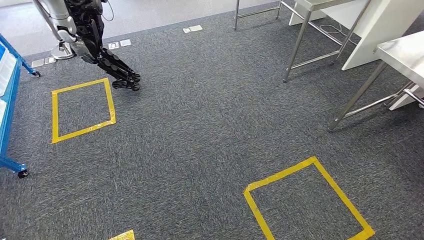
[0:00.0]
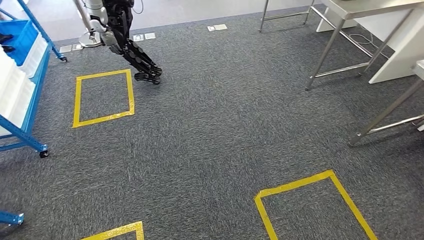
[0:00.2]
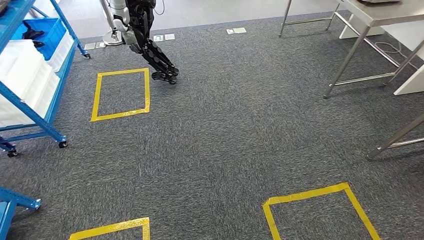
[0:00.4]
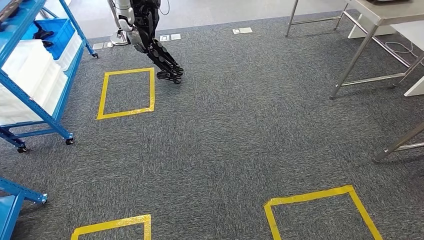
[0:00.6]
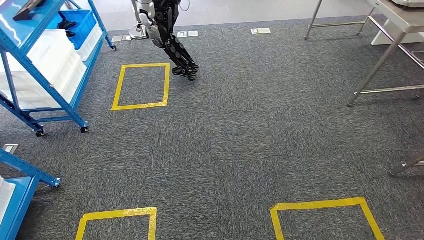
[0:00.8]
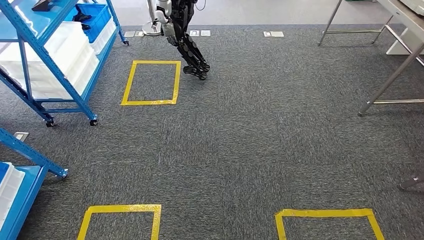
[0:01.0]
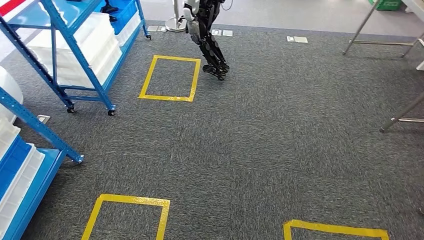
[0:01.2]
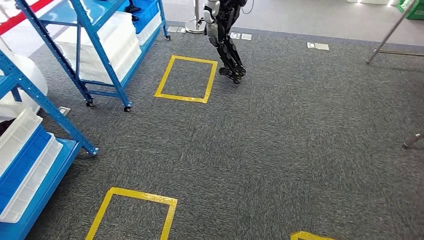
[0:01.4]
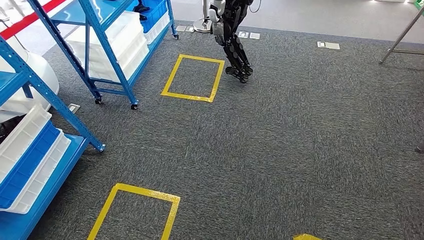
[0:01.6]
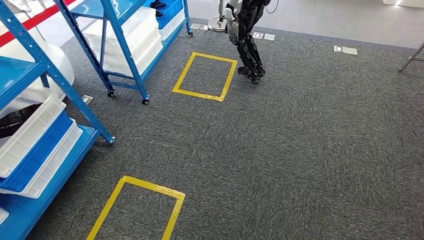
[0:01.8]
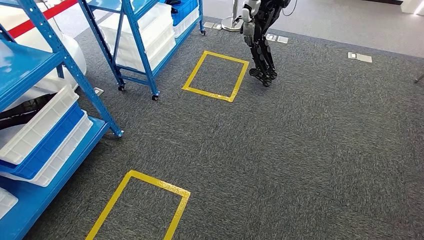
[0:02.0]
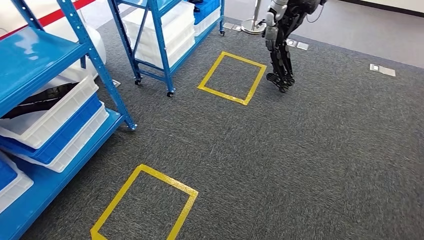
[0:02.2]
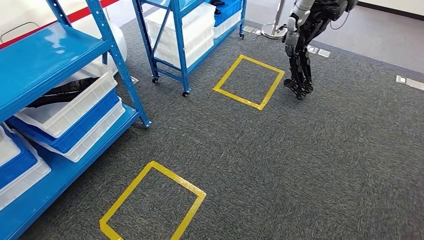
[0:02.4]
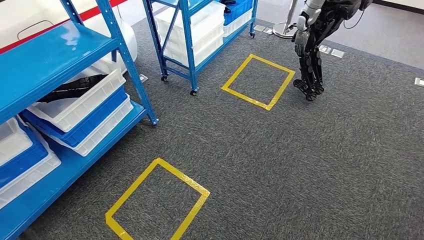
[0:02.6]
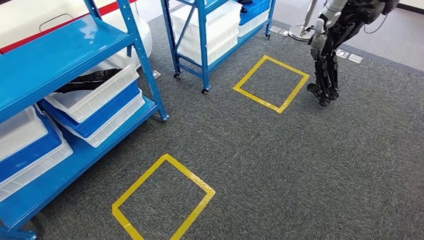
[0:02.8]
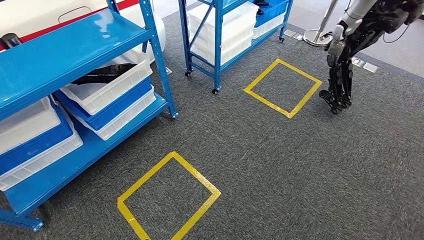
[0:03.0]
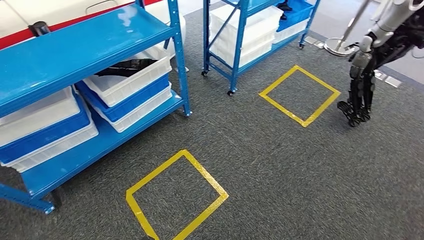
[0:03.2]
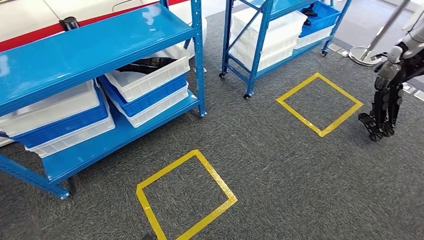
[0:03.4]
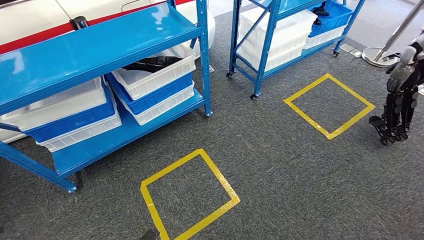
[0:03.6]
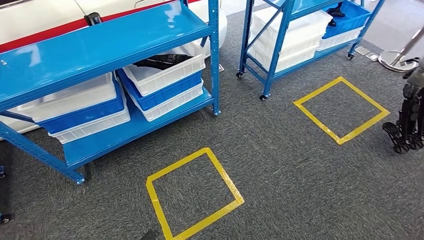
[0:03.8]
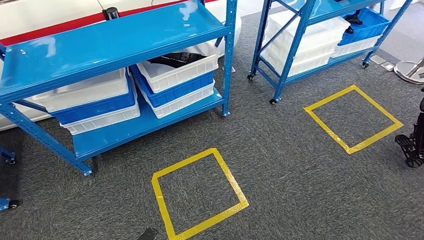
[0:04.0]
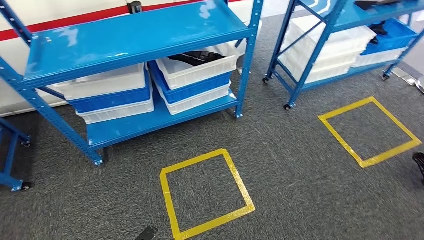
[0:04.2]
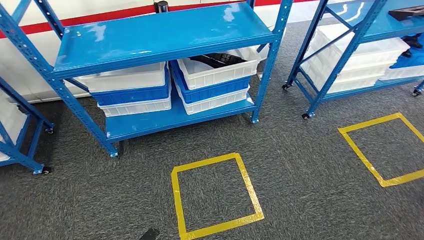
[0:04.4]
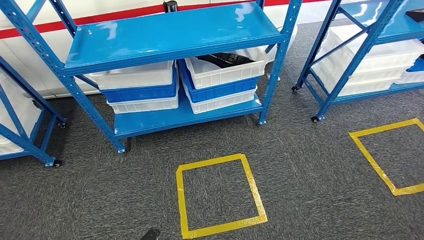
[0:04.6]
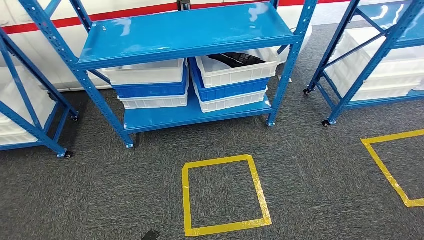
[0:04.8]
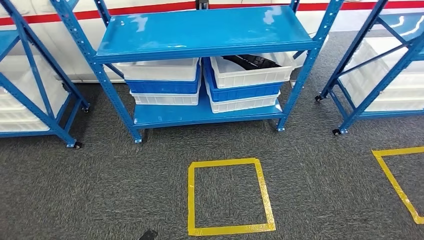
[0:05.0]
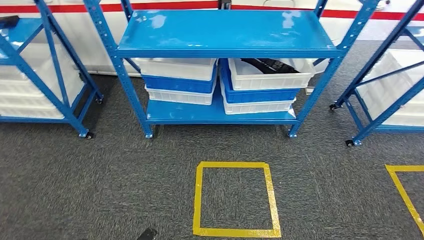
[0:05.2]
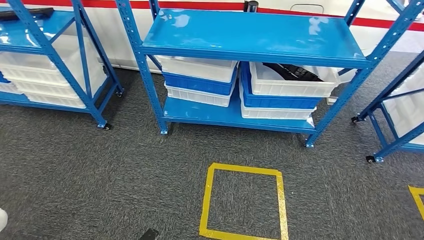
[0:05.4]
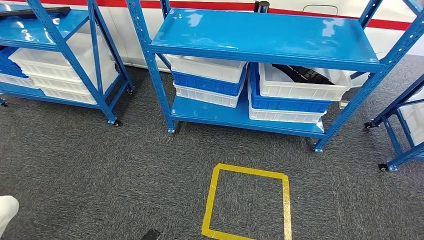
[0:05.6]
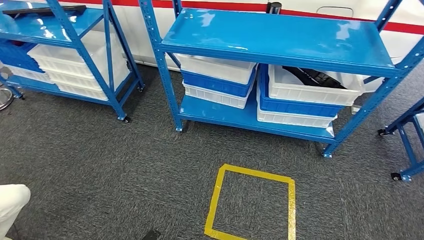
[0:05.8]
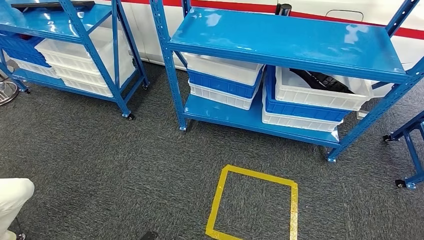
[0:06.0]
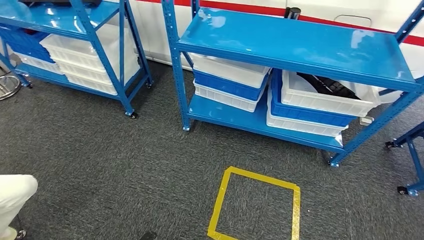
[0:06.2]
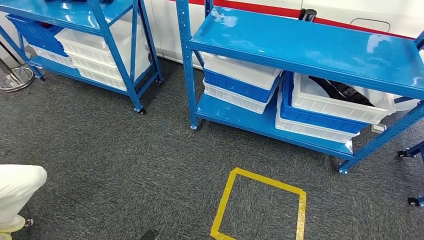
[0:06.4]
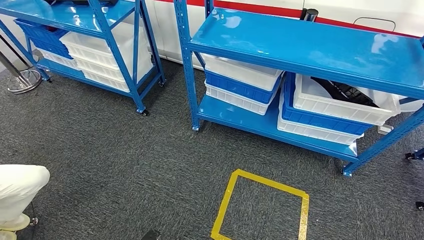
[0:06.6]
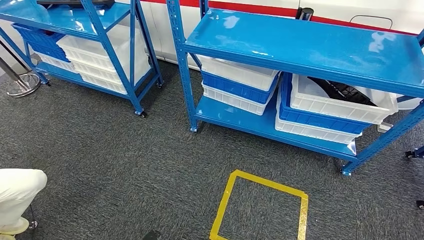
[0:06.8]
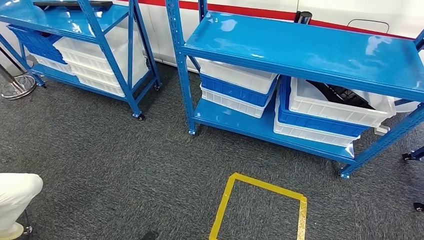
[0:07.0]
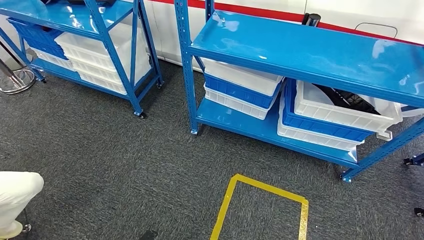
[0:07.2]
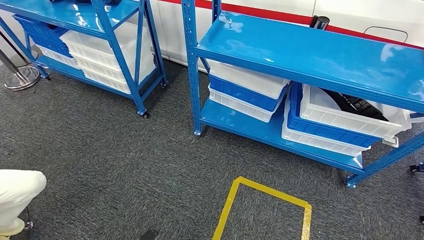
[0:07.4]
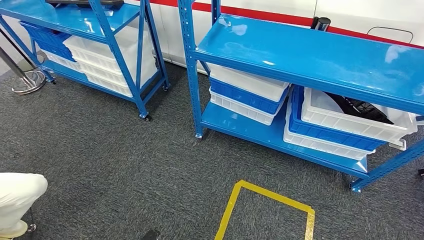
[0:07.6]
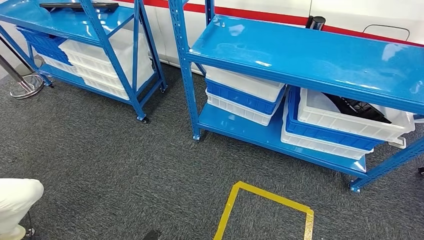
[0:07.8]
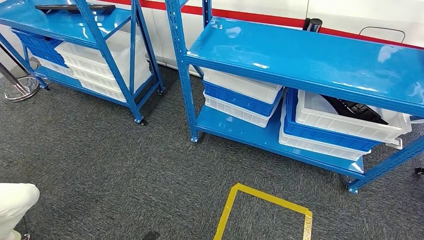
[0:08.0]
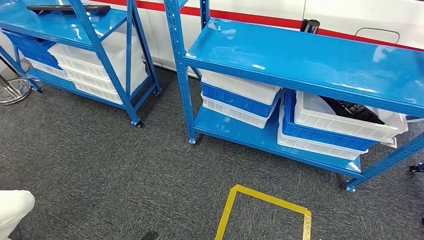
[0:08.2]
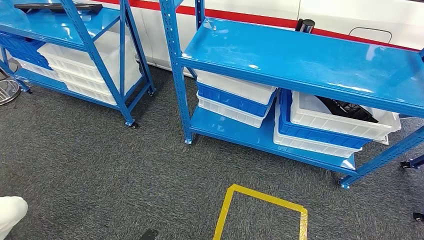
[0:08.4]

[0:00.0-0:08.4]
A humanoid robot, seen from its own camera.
Step, 0:00.0 to 0:08.4: Move to the initial position of the shelf.

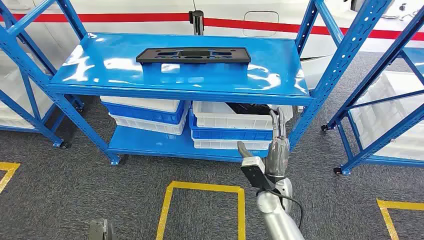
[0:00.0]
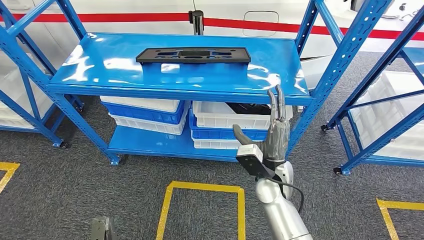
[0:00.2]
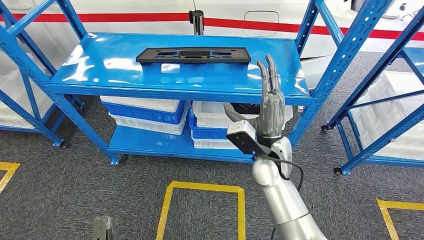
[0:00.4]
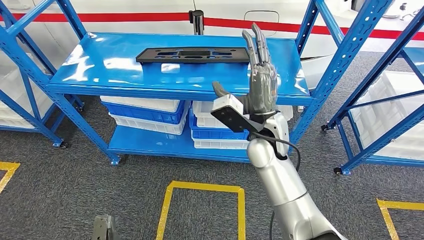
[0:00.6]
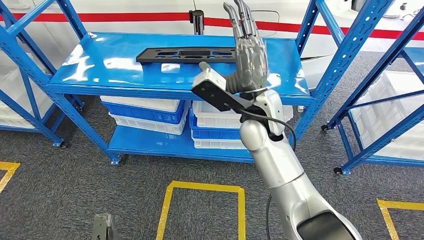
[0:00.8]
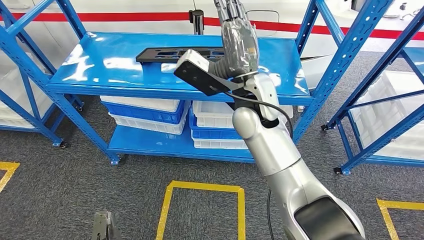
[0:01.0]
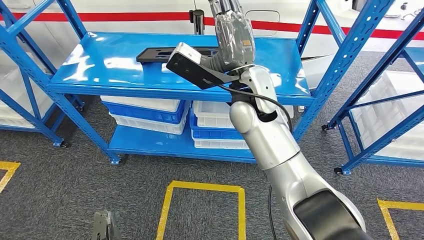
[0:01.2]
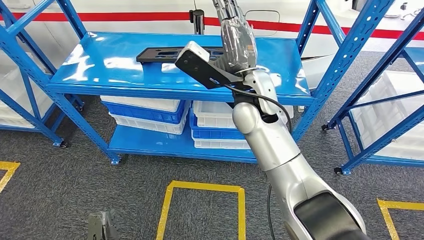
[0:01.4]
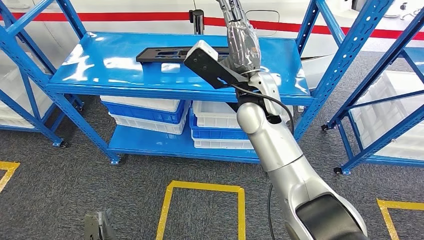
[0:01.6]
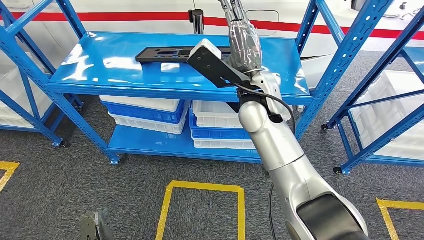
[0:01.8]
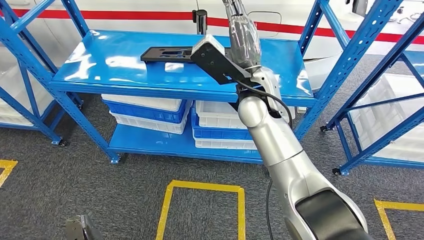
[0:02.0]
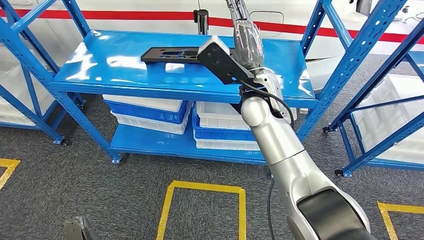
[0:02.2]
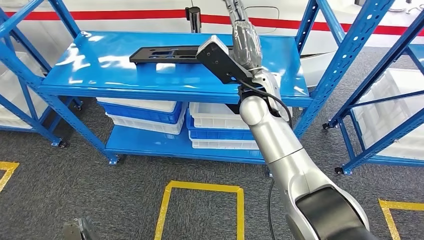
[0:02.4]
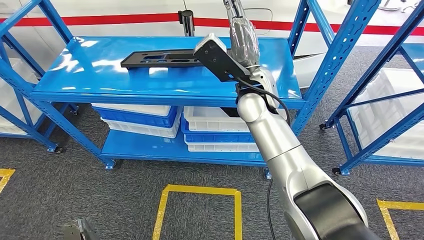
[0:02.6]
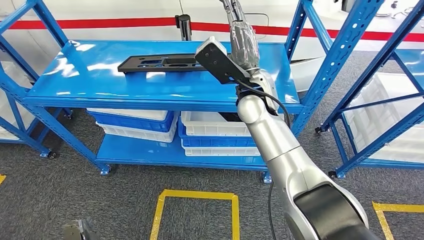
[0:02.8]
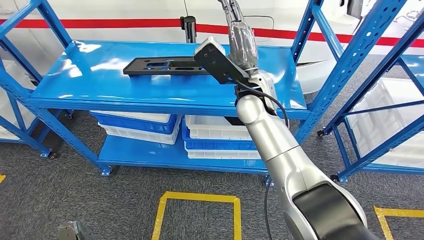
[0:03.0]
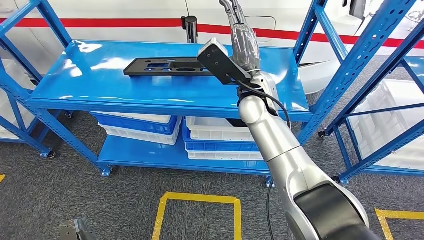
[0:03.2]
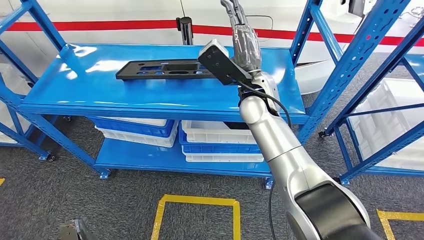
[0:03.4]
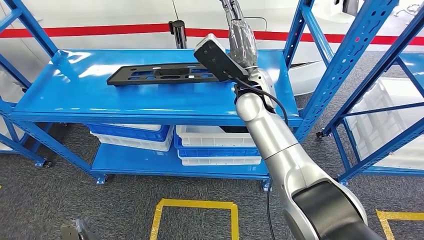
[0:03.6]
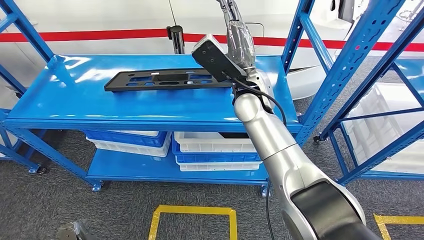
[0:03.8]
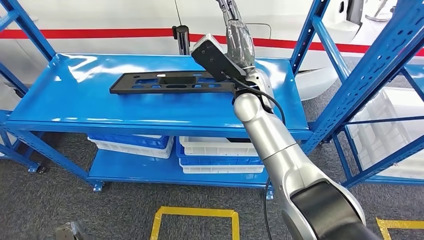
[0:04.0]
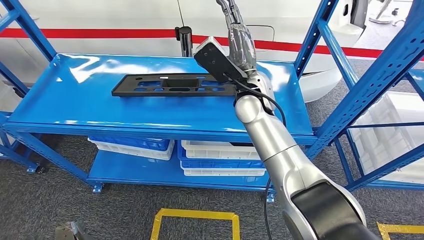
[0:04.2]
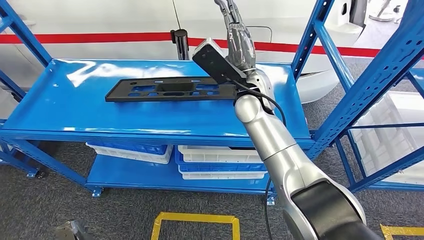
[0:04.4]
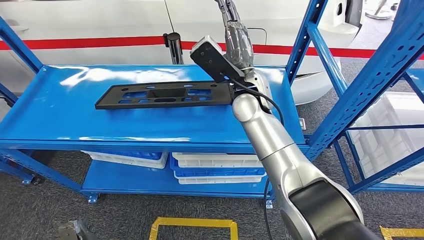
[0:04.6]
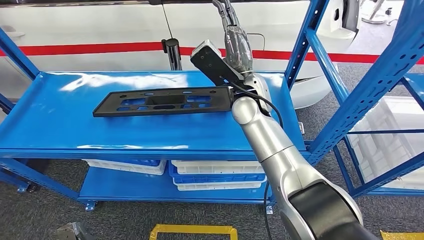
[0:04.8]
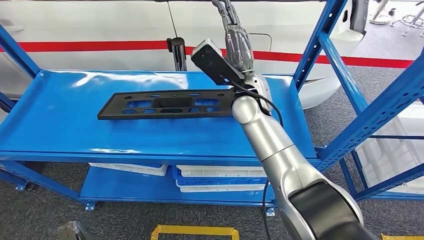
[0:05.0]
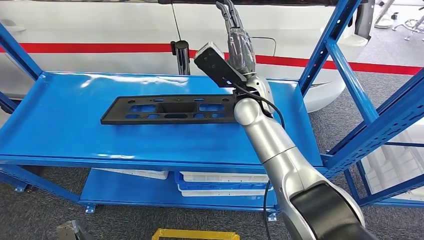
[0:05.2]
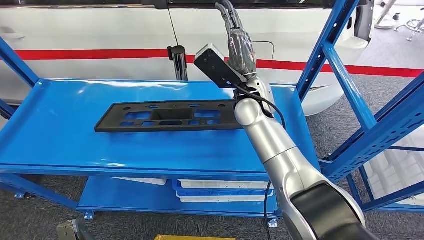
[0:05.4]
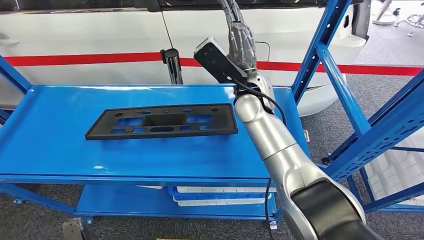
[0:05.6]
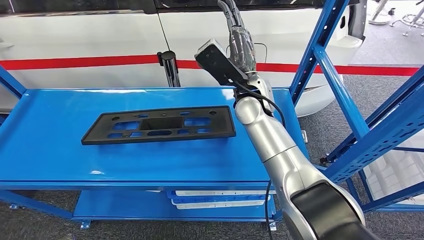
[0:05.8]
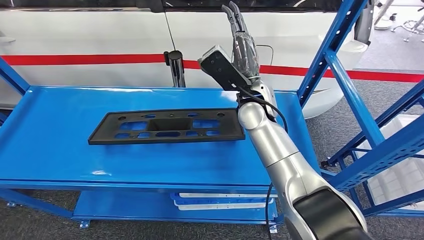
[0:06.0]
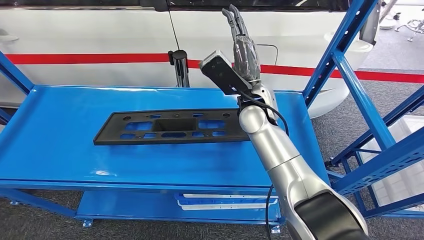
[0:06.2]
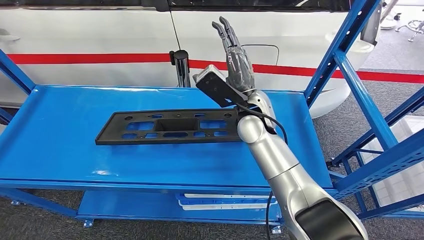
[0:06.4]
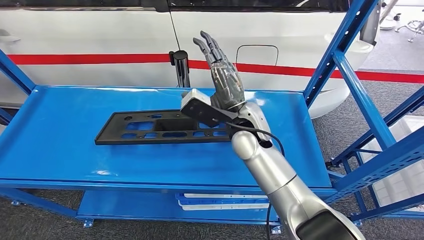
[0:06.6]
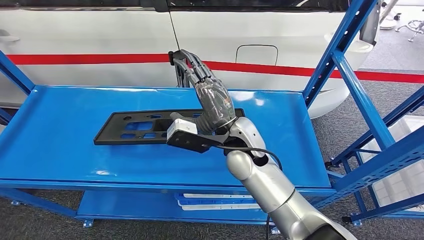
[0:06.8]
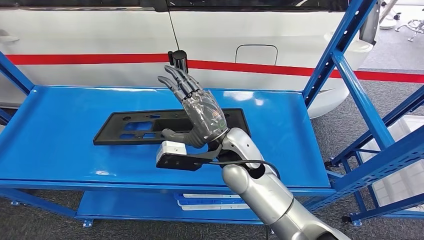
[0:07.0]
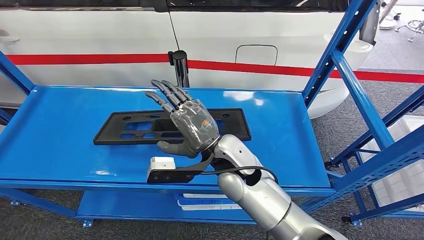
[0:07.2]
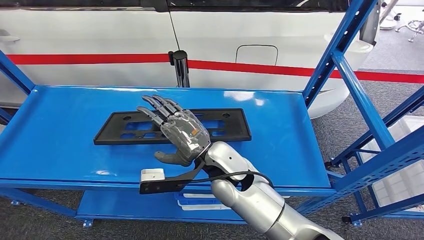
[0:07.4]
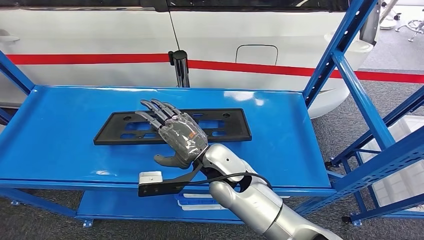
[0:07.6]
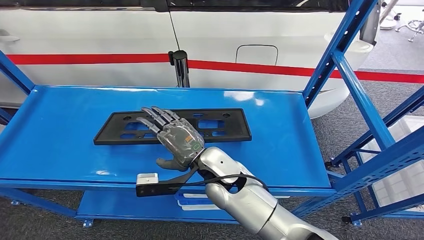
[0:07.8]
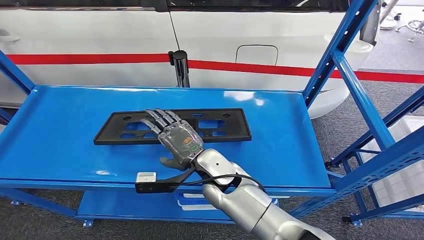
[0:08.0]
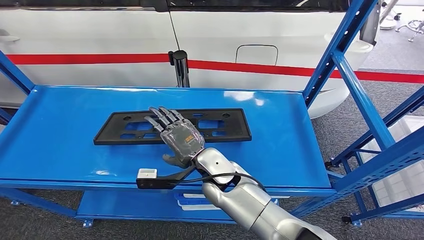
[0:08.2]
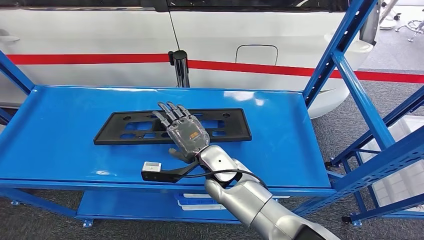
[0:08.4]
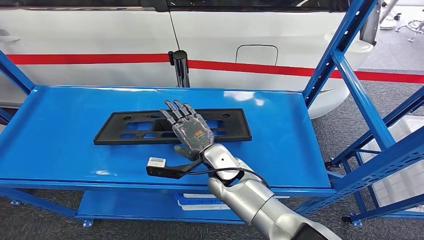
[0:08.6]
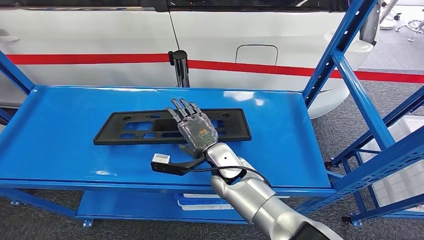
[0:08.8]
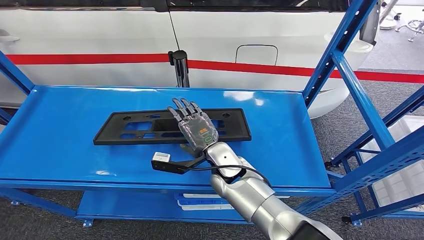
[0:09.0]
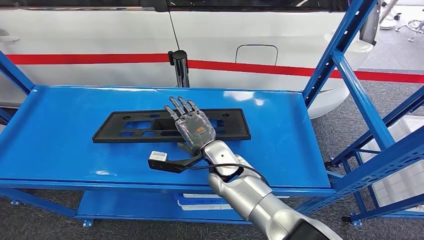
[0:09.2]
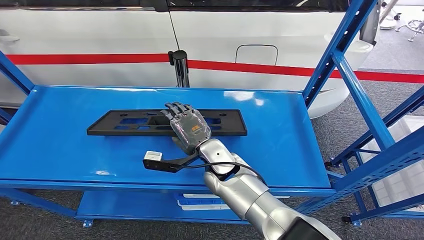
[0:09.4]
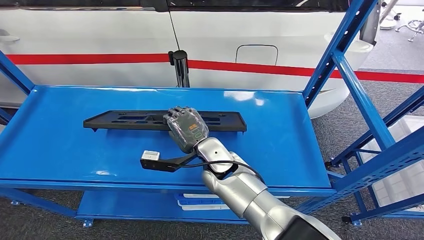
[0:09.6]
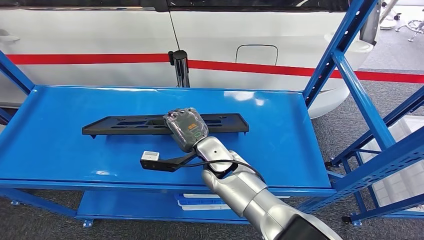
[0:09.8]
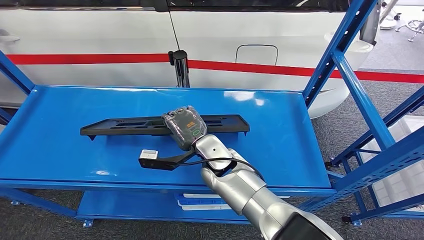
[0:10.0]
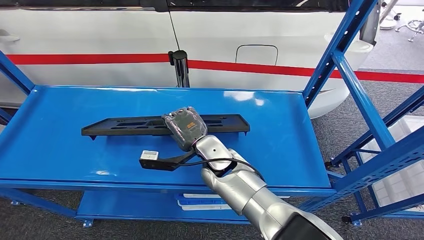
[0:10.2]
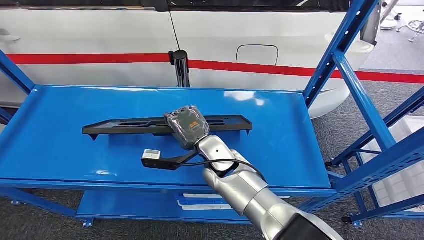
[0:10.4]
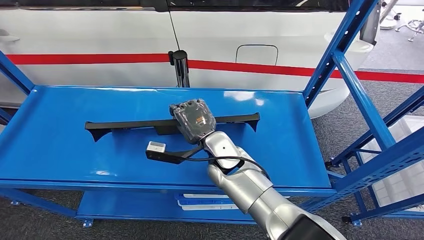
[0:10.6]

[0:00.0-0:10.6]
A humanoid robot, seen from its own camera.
0:07.6 to 0:09.0: The right hand travels downward by approximately 5 cm.
0:09.0 to 0:10.6: The hands make only small movements.
